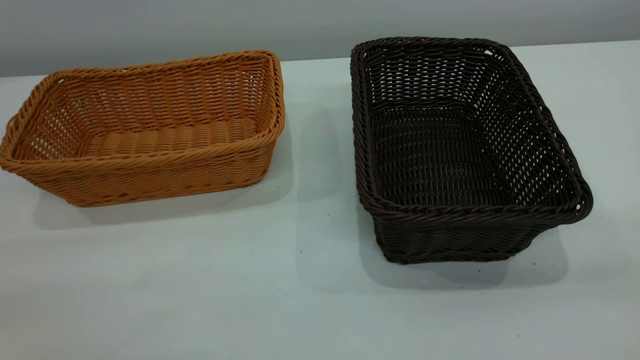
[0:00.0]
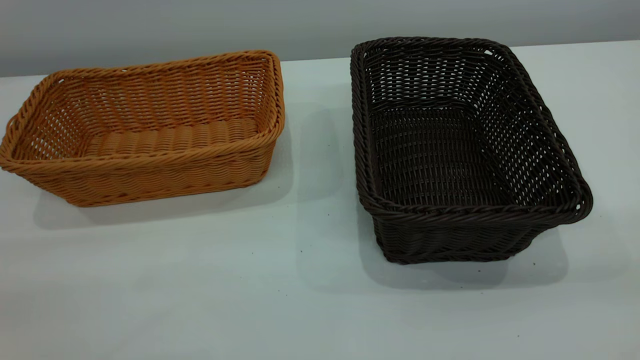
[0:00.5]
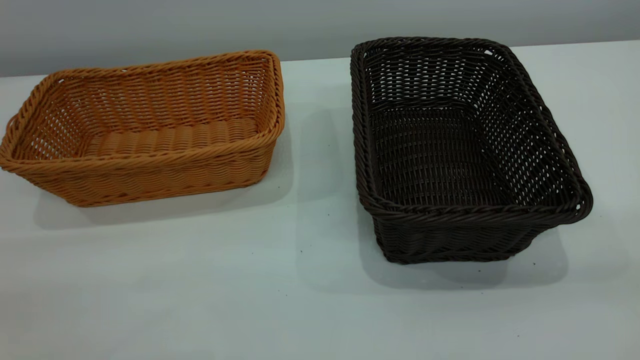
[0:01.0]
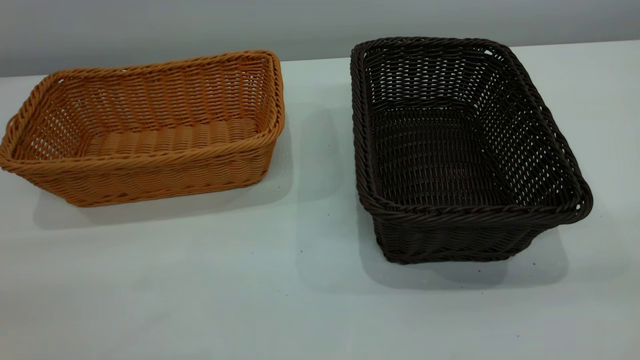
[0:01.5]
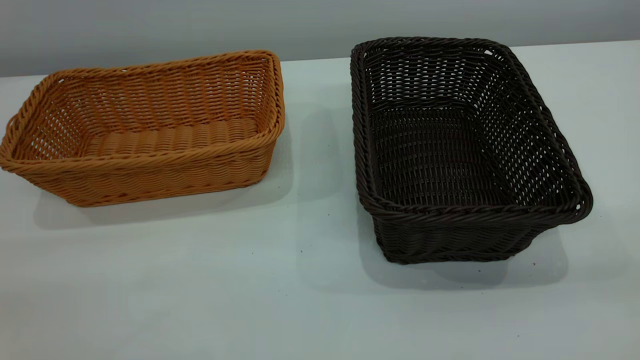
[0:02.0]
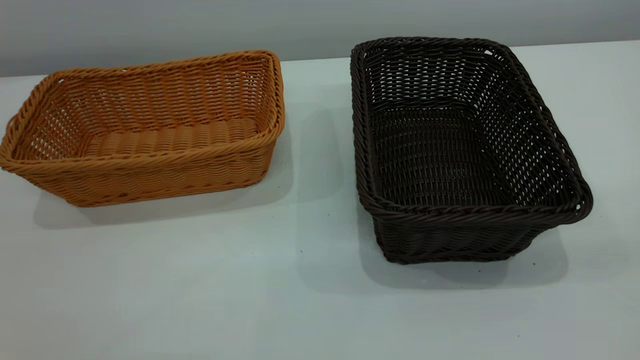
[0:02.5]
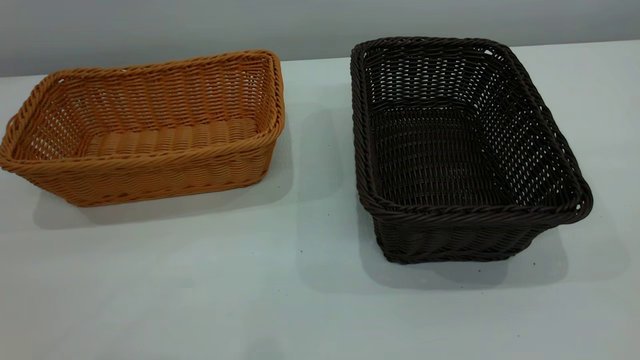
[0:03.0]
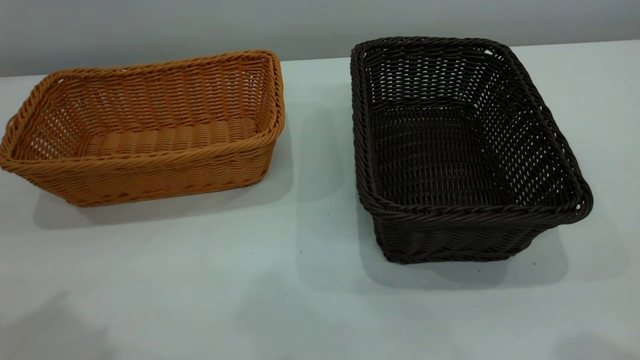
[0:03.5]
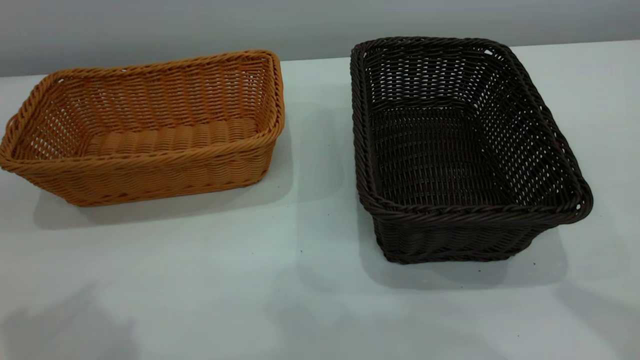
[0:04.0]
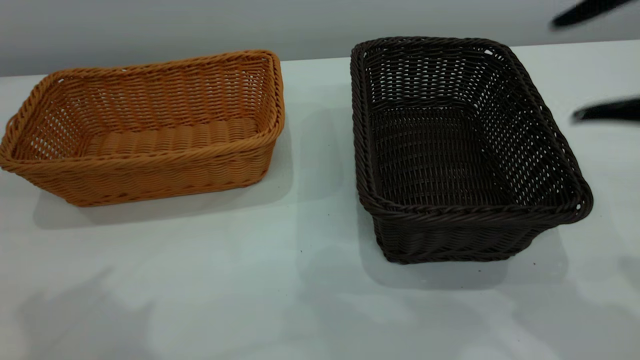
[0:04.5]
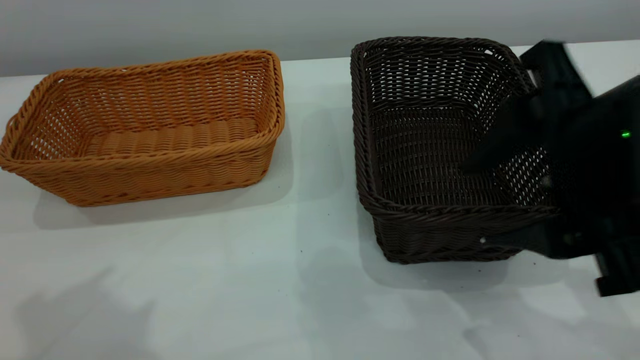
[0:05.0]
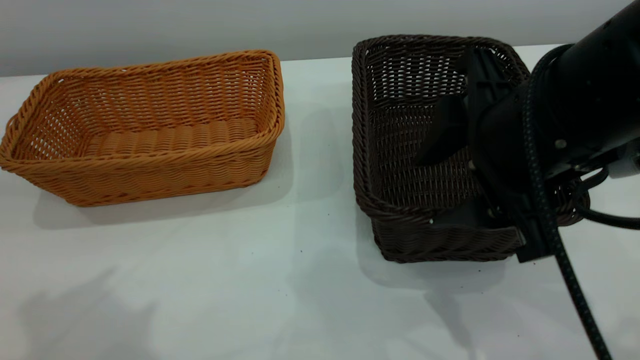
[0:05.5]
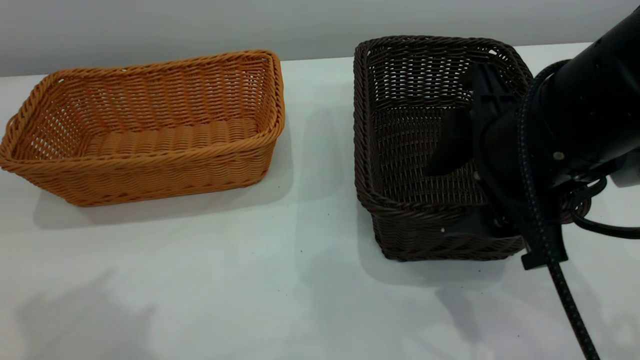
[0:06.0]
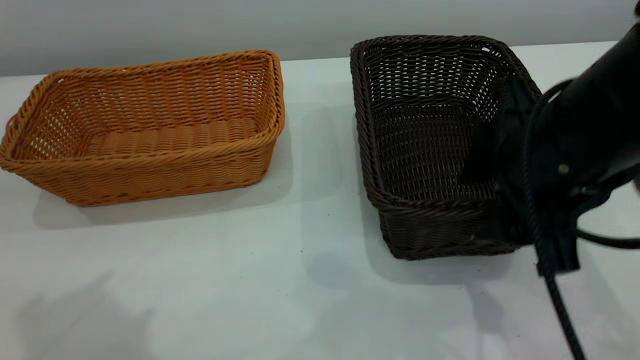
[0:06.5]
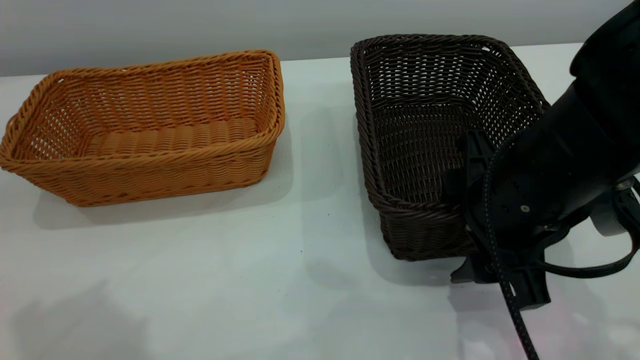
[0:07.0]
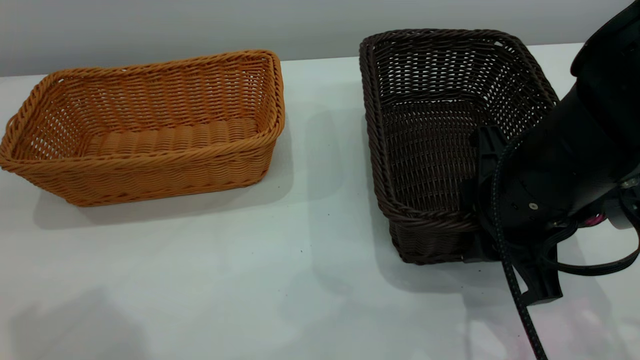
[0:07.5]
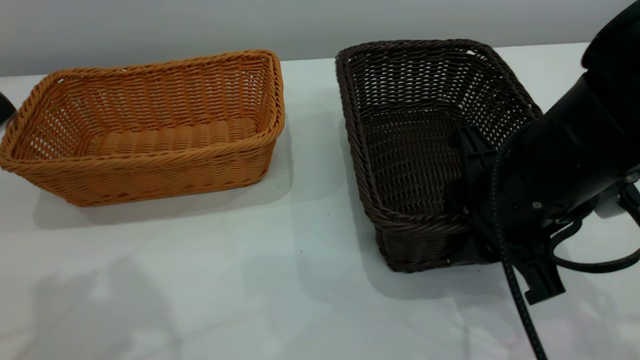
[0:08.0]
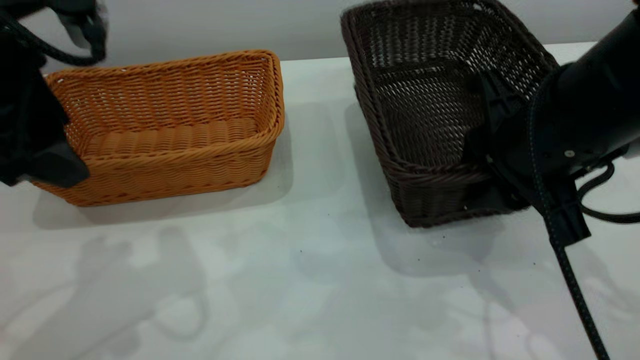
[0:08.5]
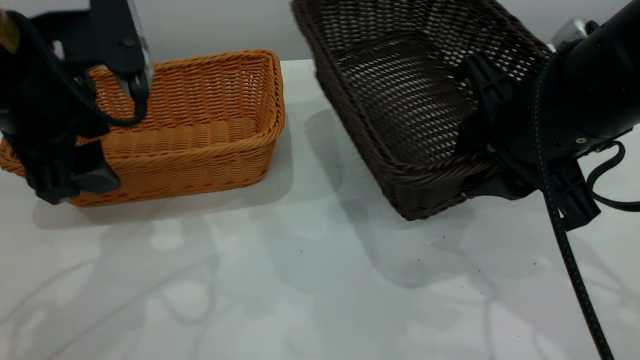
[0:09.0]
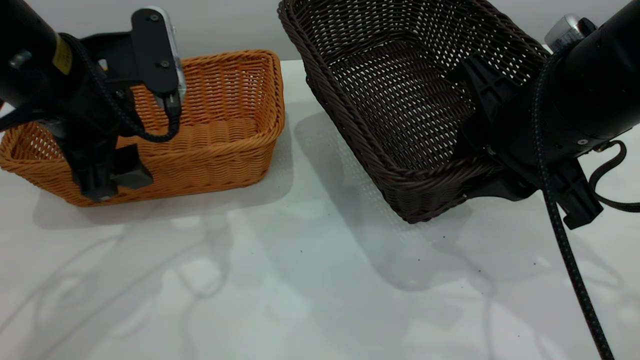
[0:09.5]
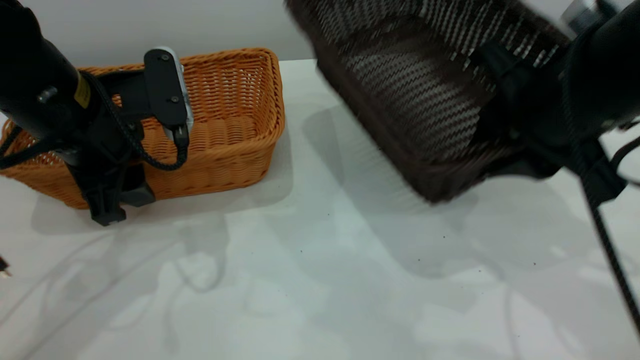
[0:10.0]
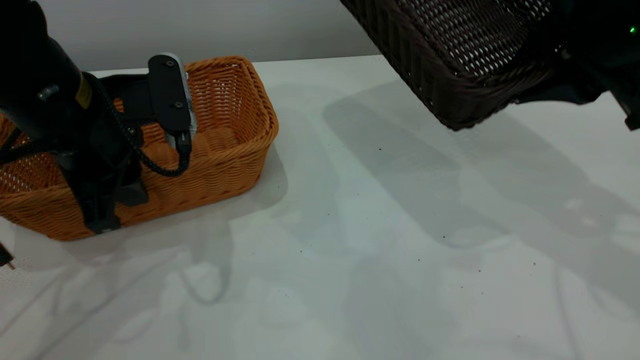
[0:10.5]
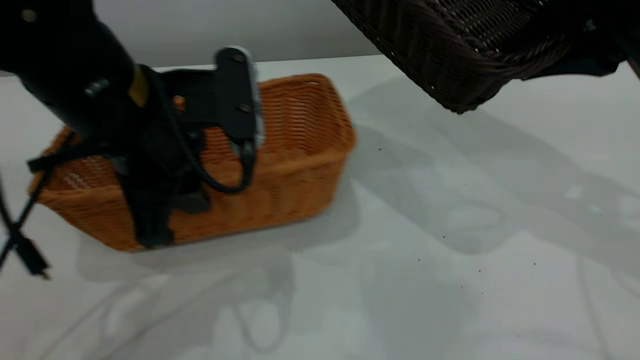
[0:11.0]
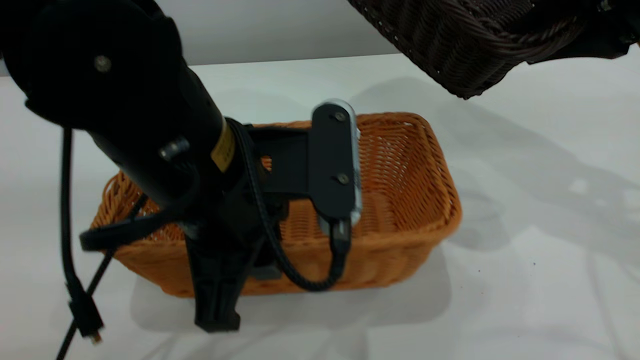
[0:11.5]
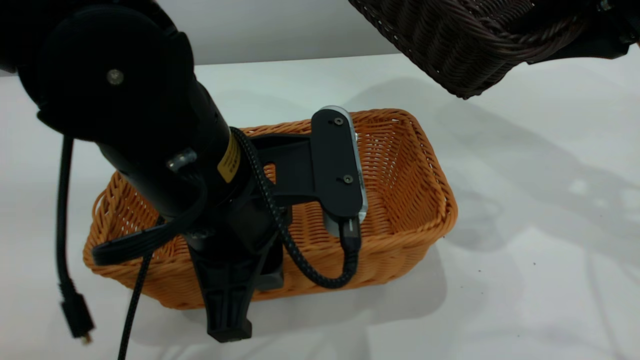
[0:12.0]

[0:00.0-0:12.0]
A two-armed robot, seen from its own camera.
Task of the whole recording: the left gripper grasp the brown basket and place it in the center of the table, the right gripper grasp the black basket and place it inside the brown one.
Step, 0:00.0 to 0:09.5: Pick up the light basket with the right gripper.
0:00.0 to 0:02.0: Both grippers stay put.
0:04.0 to 0:06.0: The right gripper moves downward, to the left and forward, about 20 cm.
0:06.0 to 0:08.0: The left gripper goes approximately 5 cm downward. The right gripper closes its fingers.
0:08.0 to 0:10.0: The left gripper moves downward and forward, some 20 cm, and closes its fingers; the right gripper heads upward, covering approximately 5 cm.
0:10.0 to 0:12.0: The right gripper goes some 10 cm to the right and upward, while the left gripper heads to the right and backward, covering some 15 cm.

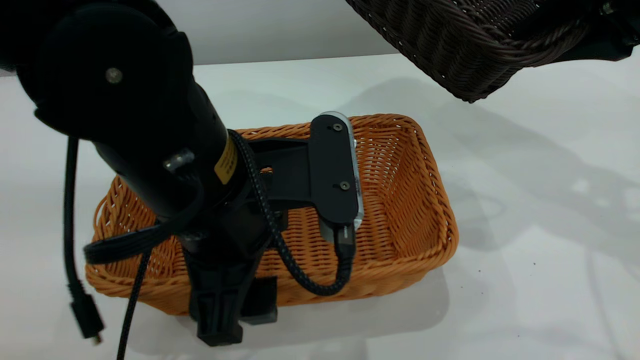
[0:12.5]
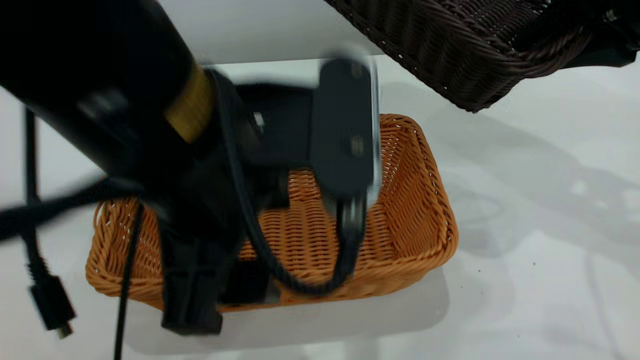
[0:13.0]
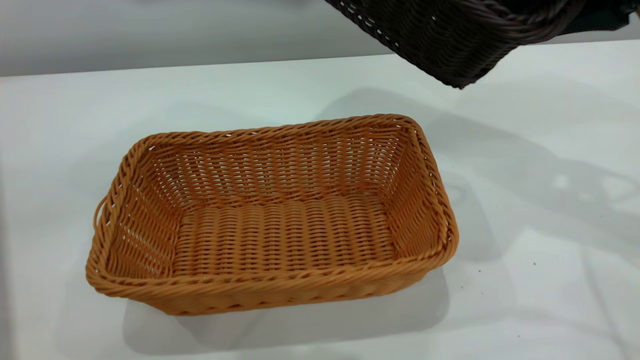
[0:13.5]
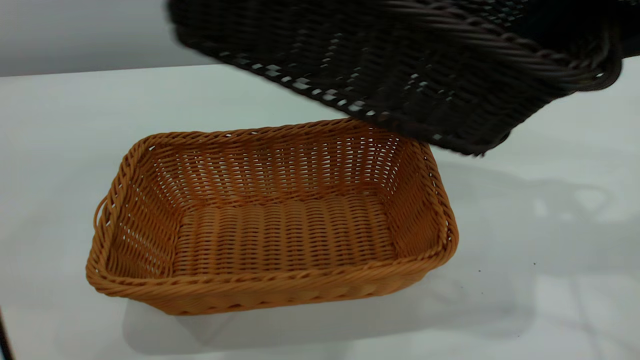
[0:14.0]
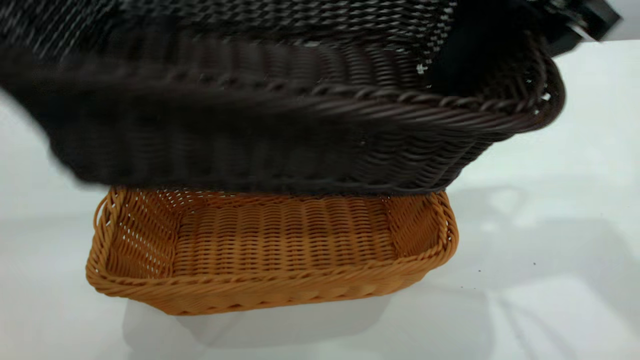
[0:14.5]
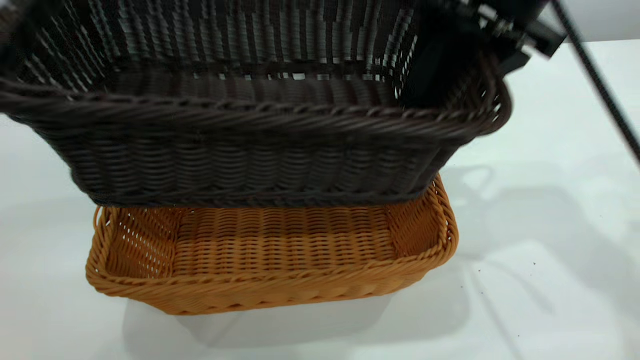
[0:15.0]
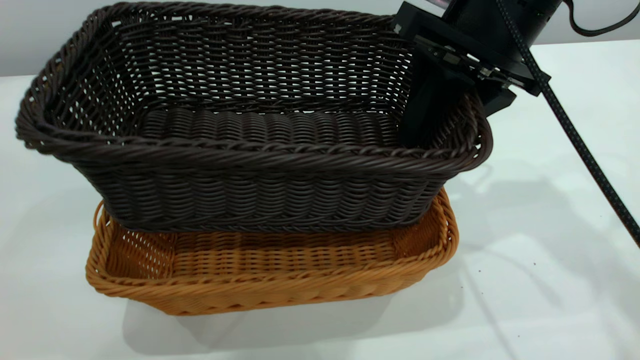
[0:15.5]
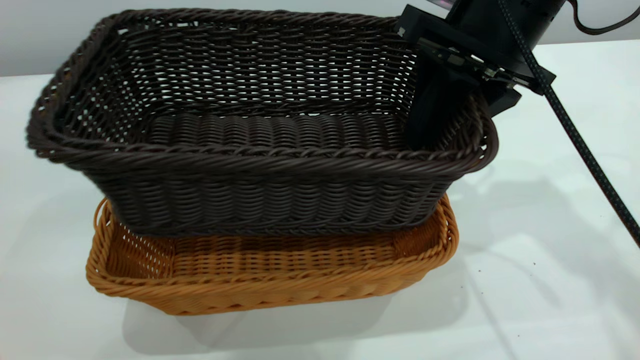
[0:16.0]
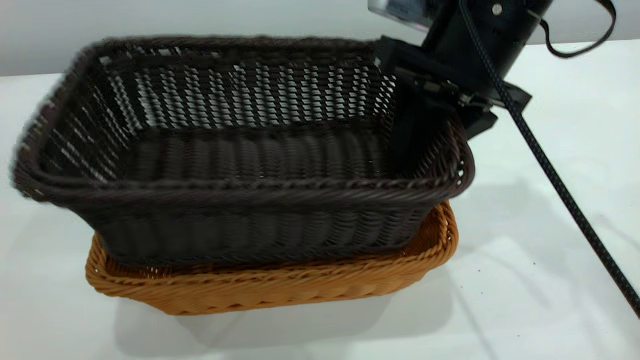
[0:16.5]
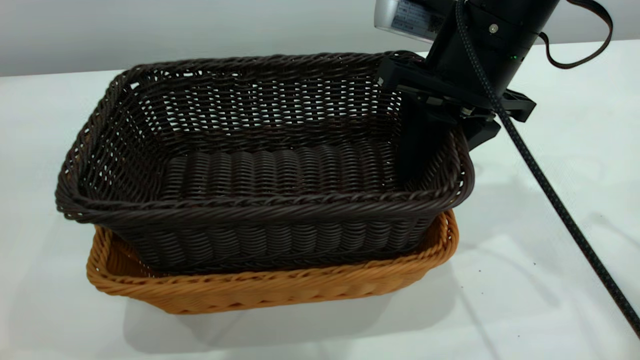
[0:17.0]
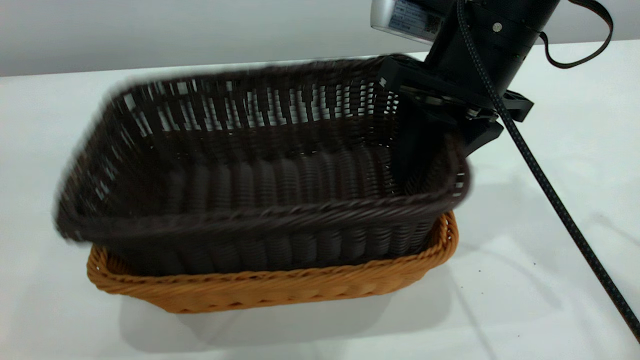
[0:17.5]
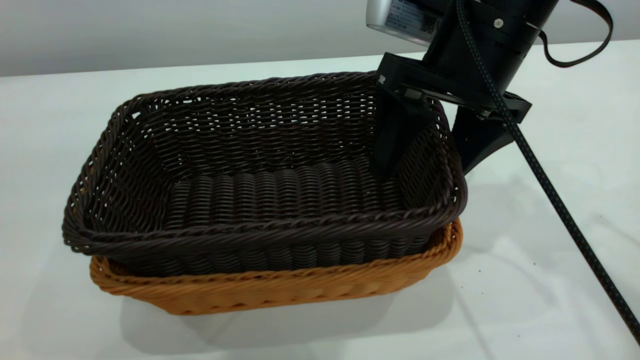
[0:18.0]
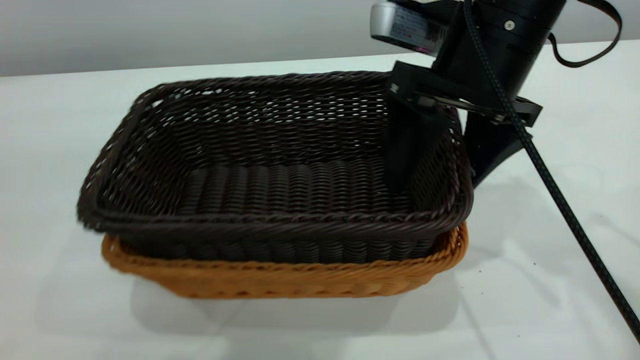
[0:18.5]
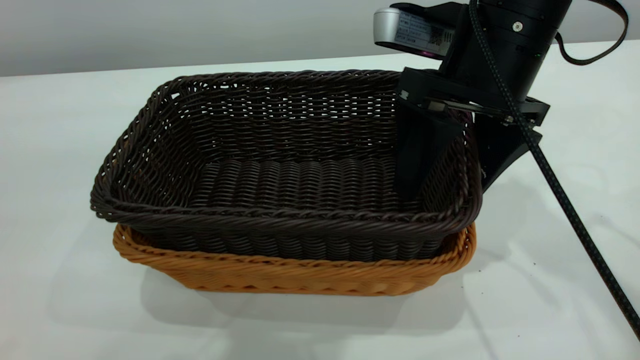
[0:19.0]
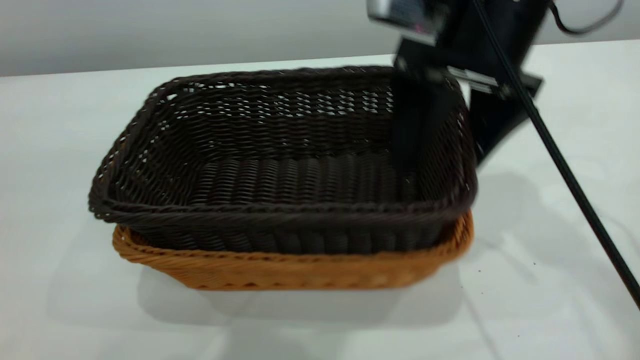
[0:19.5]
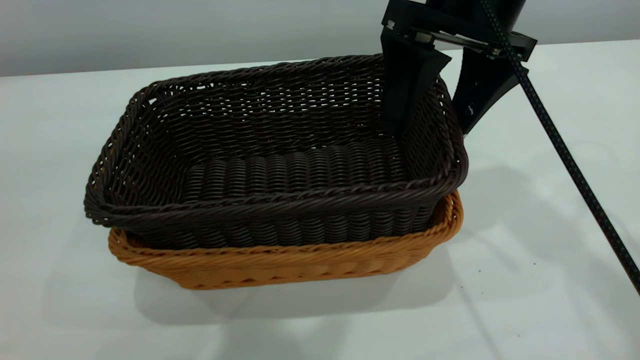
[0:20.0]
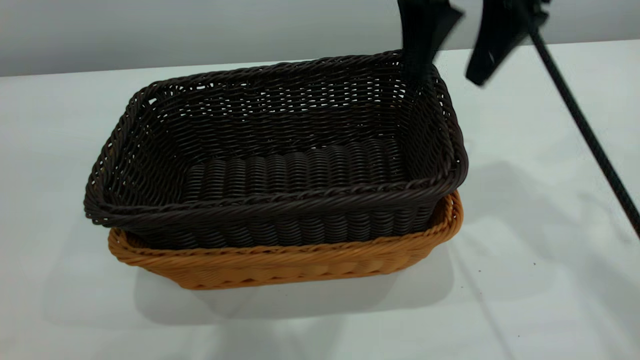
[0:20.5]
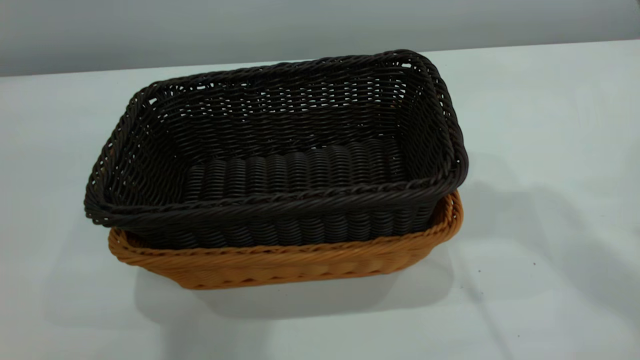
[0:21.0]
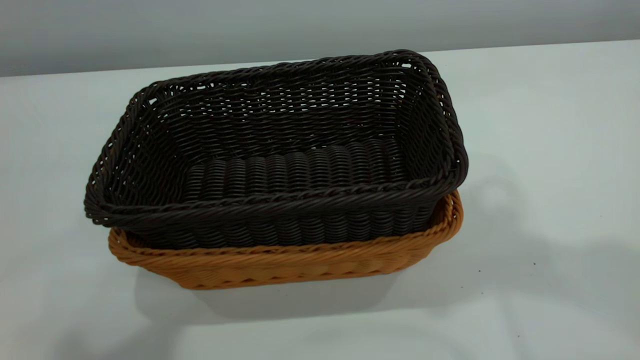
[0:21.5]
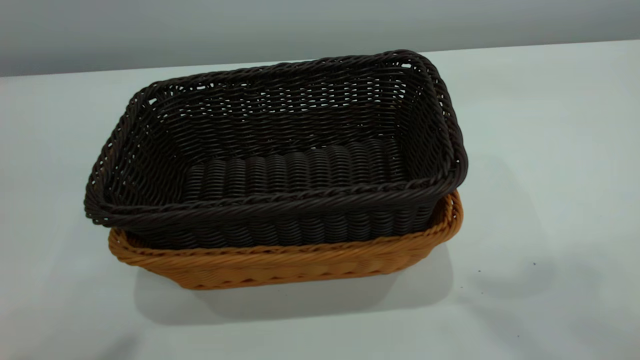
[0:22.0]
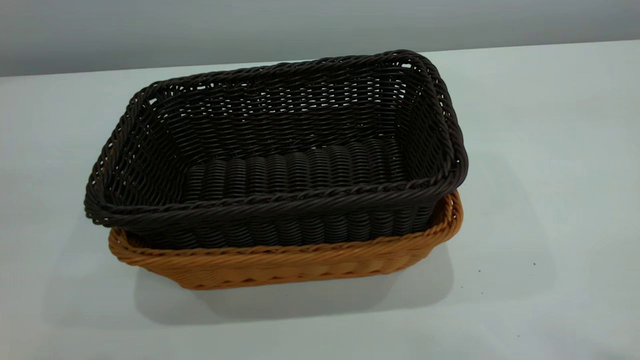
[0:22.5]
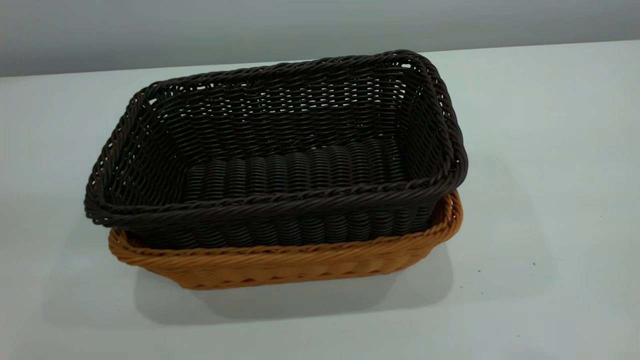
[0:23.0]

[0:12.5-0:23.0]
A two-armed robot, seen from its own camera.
Task of the whole recording: the left gripper grasp the brown basket and place it in the center of the table, the right gripper grasp the black basket and place it inside the brown one.
Step, 0:13.5 to 0:20.0: Place the dark basket on top of the light basket.
0:12.5 to 0:14.5: The left gripper travels upward by about 25 cm. The right gripper is displaced to the left by approximately 10 cm.
0:14.5 to 0:16.5: The right gripper is displaced downward by some 10 cm.
0:16.5 to 0:19.0: The right gripper opens its fingers.
0:19.0 to 0:21.0: The left gripper closes its fingers. Meanwhile the right gripper is displaced upward by roughly 20 cm.
0:21.0 to 0:23.0: The left gripper goes about 10 cm to the left and backward, and closes.
